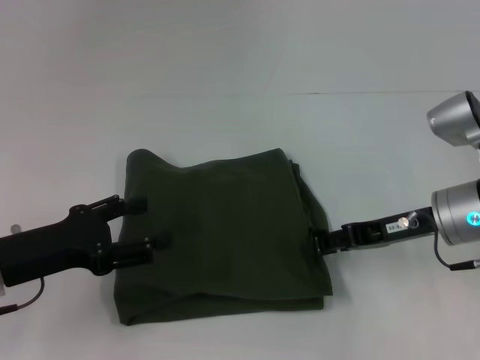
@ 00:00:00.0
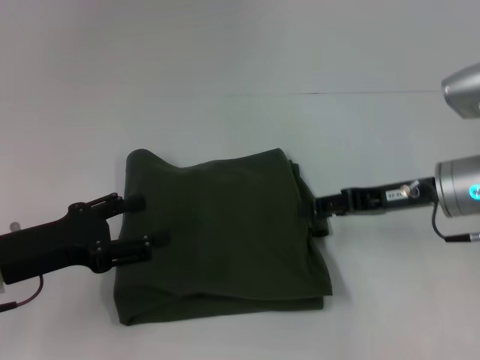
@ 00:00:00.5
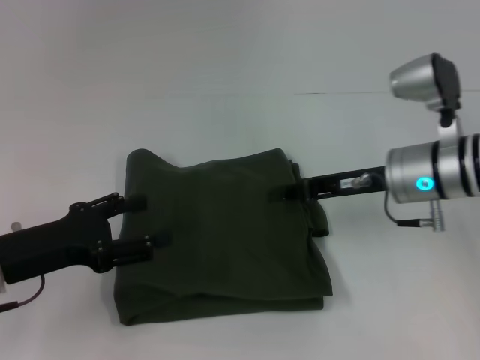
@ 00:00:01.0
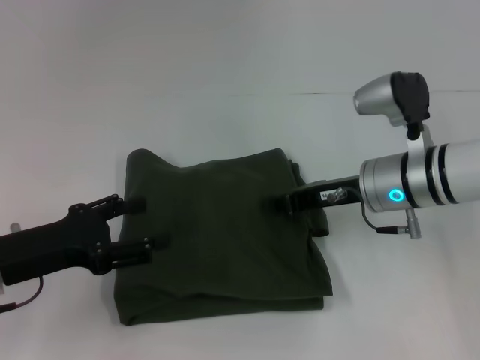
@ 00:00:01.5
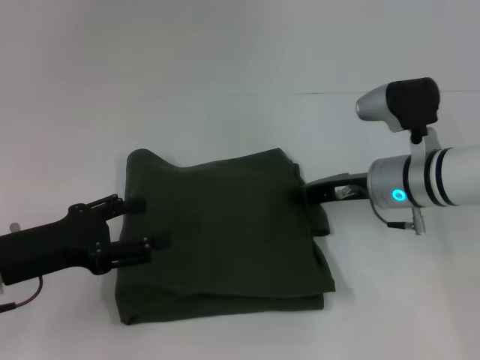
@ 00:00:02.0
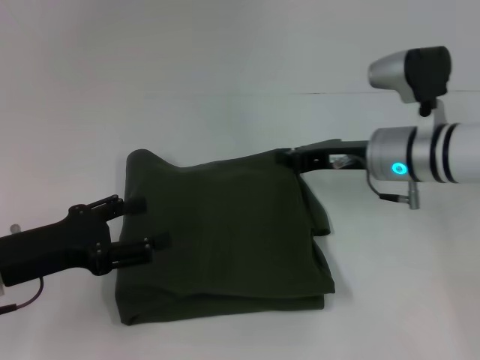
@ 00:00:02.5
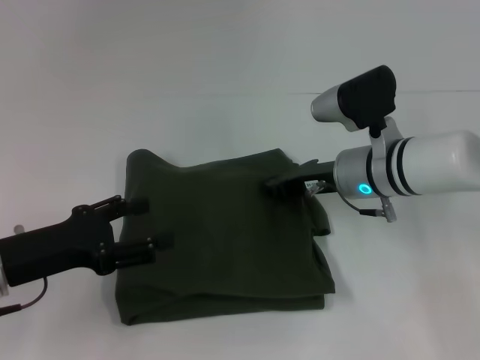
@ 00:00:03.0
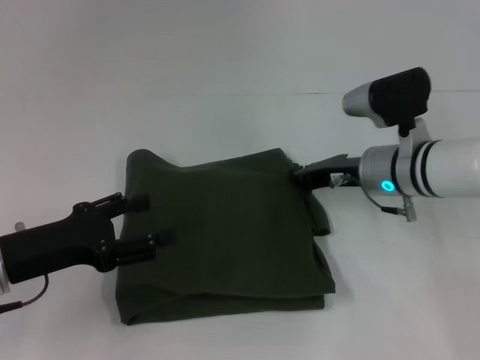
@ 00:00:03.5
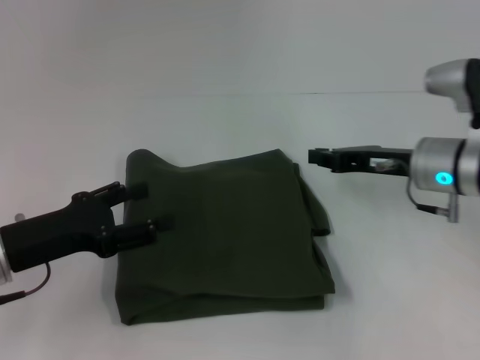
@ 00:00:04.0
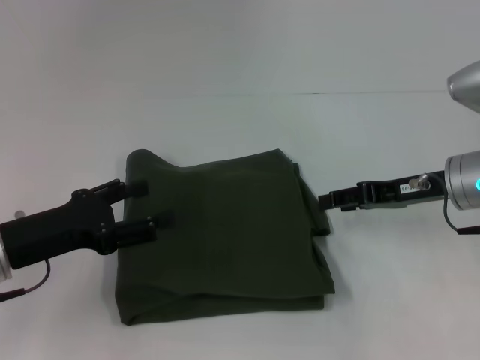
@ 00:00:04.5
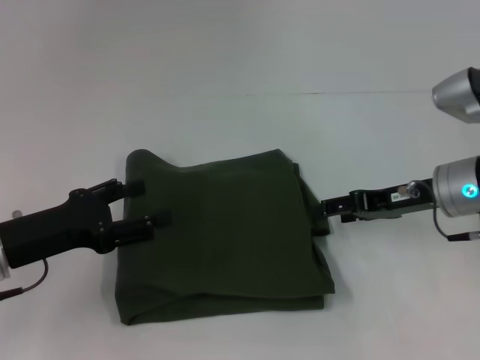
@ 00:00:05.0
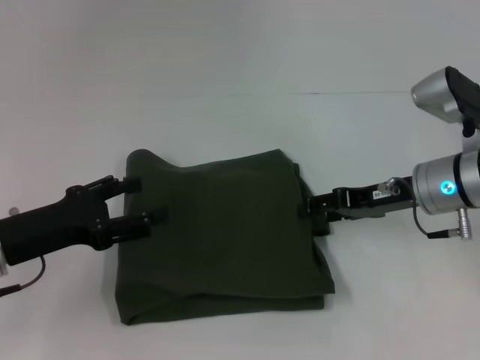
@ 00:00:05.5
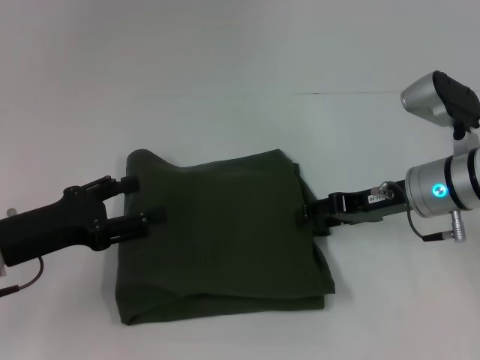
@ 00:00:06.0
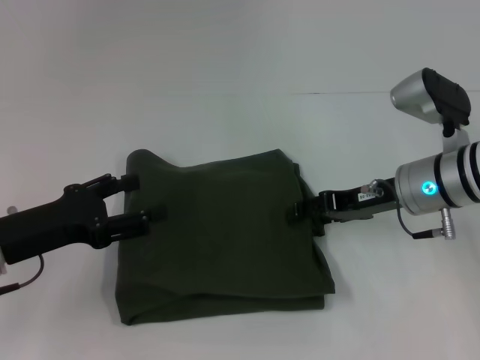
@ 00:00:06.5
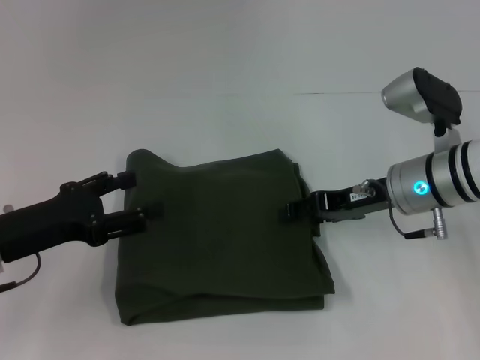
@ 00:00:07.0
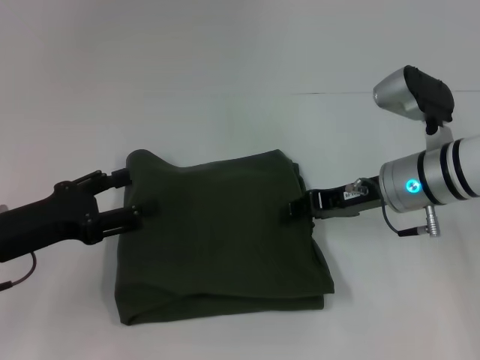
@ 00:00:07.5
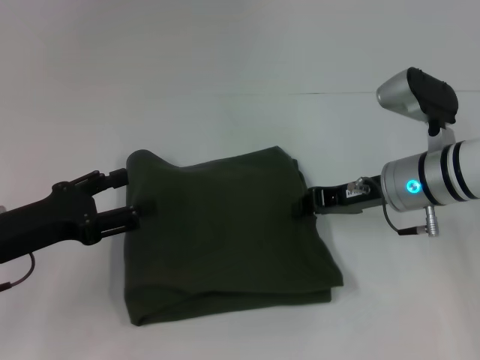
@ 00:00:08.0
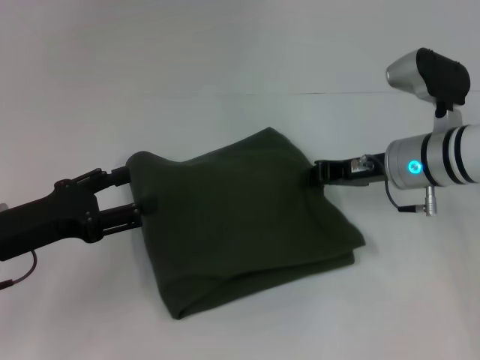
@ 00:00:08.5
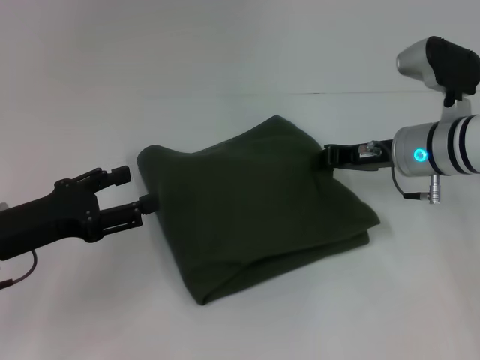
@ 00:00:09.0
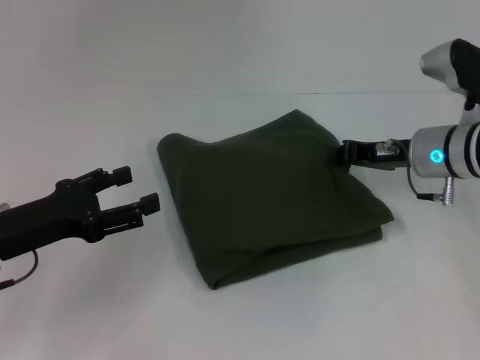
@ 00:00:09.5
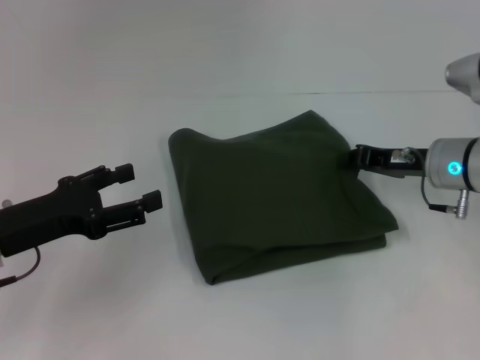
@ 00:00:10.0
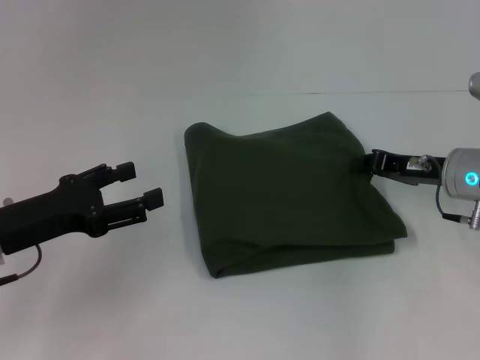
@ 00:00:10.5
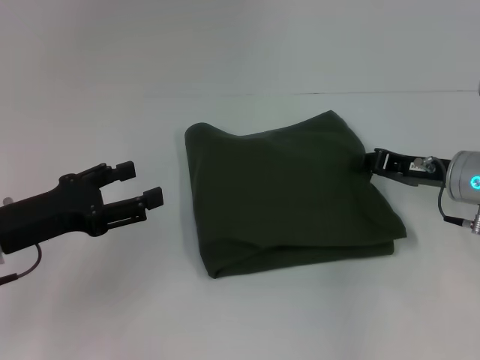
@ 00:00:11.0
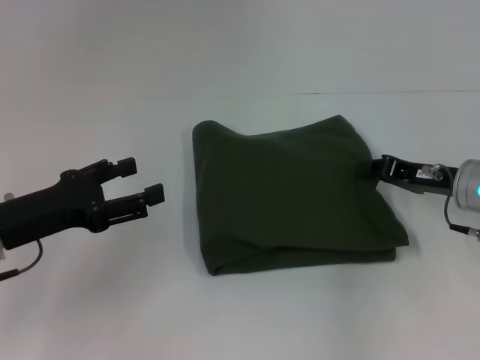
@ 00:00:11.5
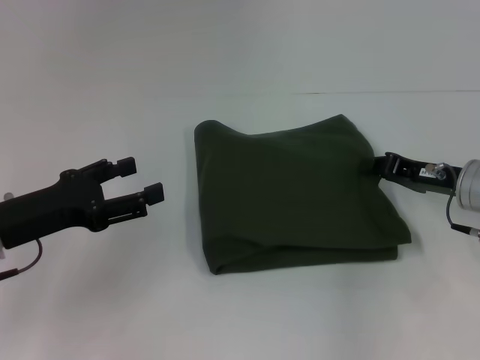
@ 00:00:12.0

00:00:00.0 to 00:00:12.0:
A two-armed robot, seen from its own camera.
00:00:00.0 to 00:00:02.0: The right gripper heads to the left, covering approximately 5 cm, and closes up.
00:00:02.0 to 00:00:04.0: The grippers stay close to where they were, moving slightly.
00:00:04.0 to 00:00:06.0: The right gripper opens.
00:00:06.0 to 00:00:08.0: The right gripper closes its fingers.
00:00:10.0 to 00:00:12.0: There are only small adjustments of the grippers.

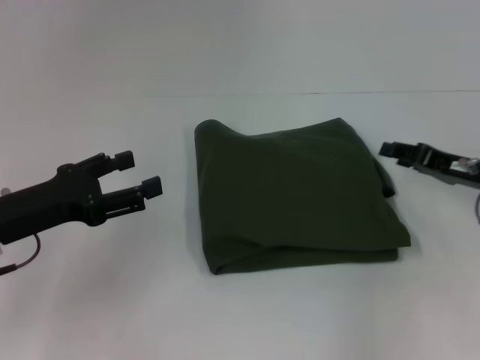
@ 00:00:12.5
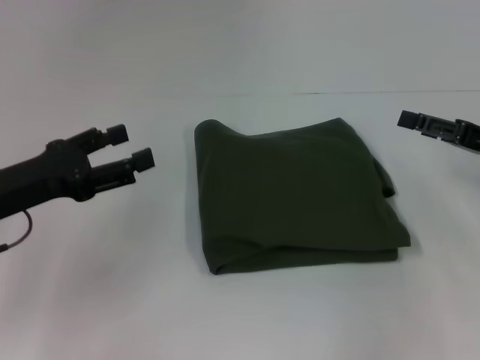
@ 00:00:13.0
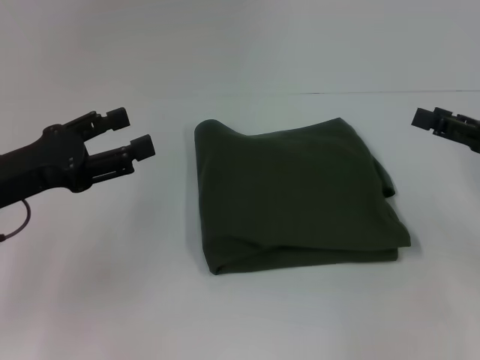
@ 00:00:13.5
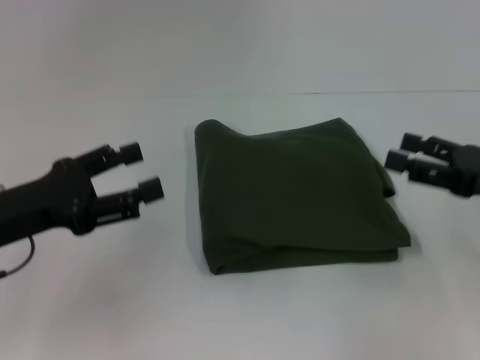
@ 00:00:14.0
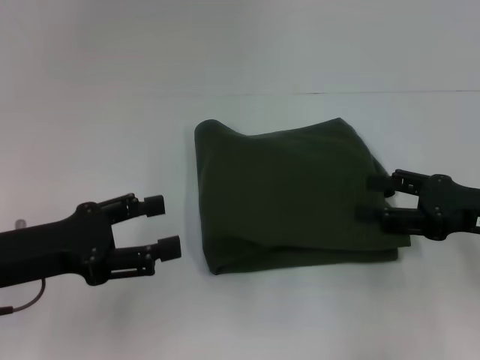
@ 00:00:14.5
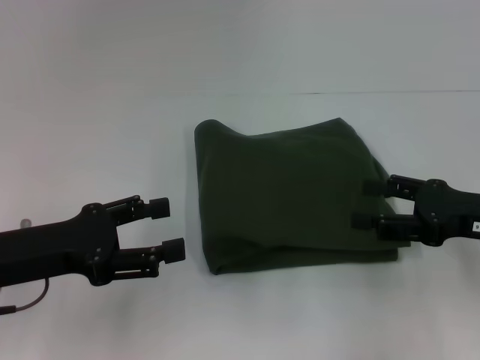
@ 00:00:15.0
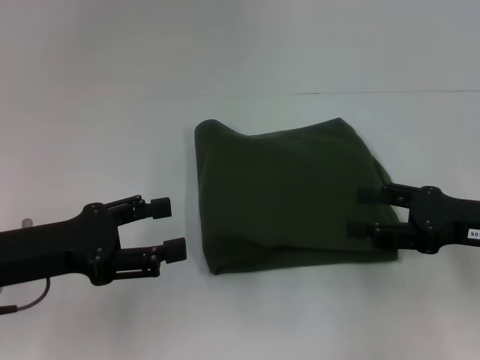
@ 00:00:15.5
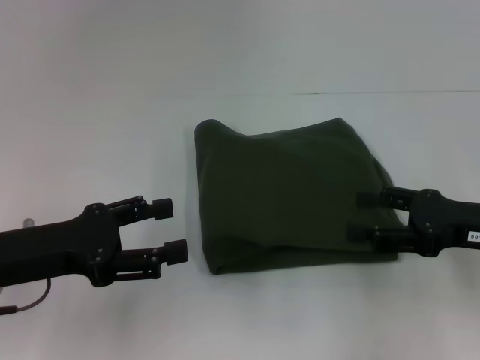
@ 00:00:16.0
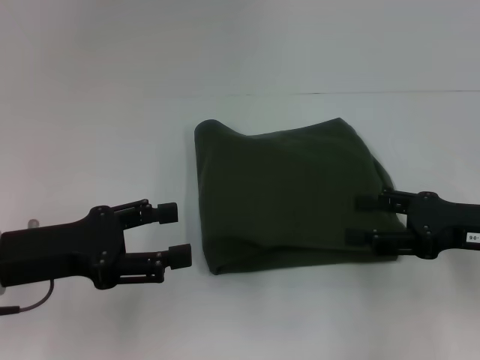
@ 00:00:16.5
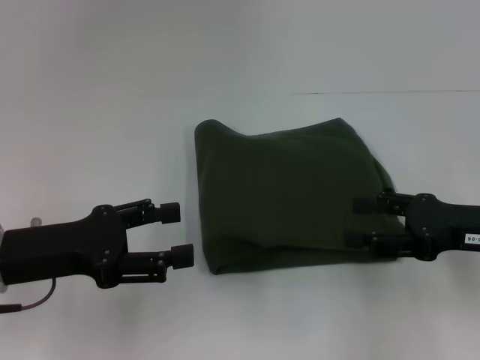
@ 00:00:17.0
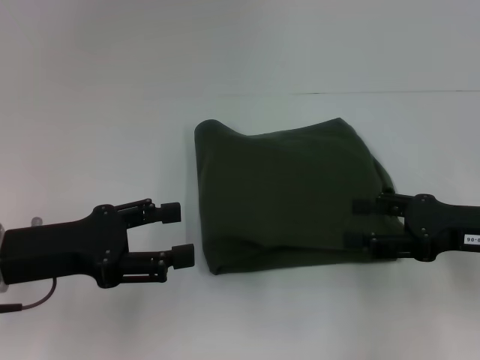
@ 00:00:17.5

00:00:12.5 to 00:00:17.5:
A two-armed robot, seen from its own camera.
00:00:12.5 to 00:00:15.0: The right gripper moves backward, roughly 5 cm, and opens up.
00:00:15.0 to 00:00:17.5: Both grippers stay about where they are.
